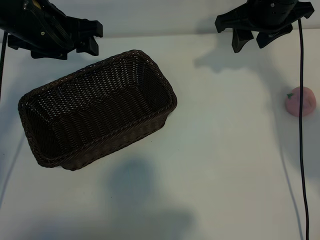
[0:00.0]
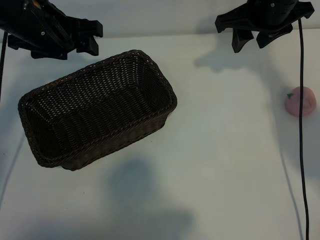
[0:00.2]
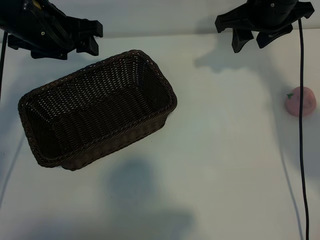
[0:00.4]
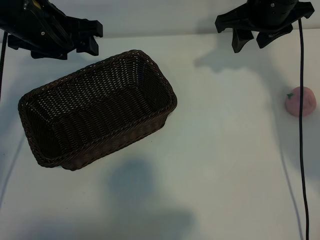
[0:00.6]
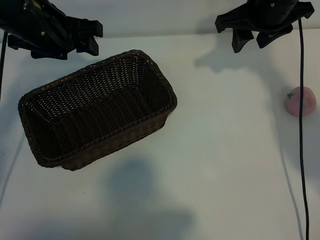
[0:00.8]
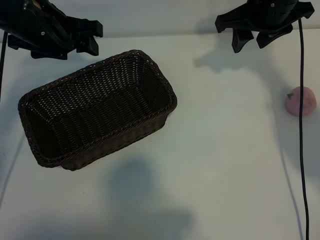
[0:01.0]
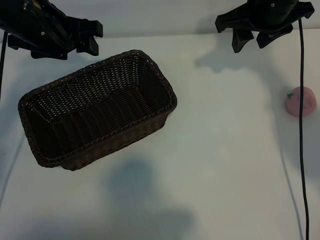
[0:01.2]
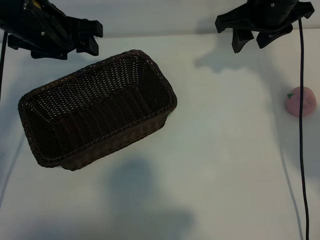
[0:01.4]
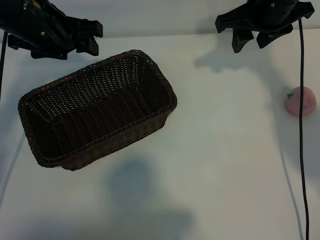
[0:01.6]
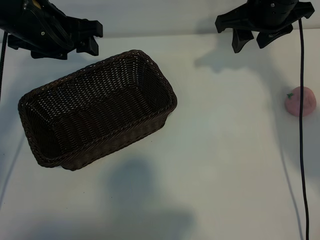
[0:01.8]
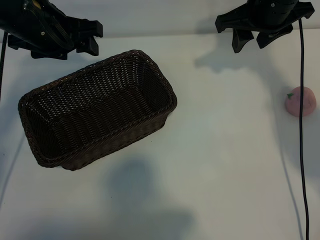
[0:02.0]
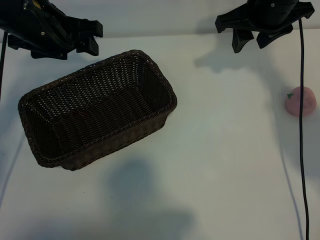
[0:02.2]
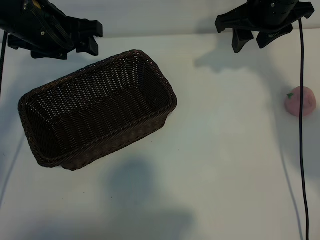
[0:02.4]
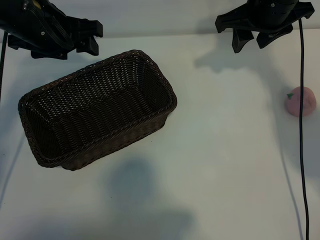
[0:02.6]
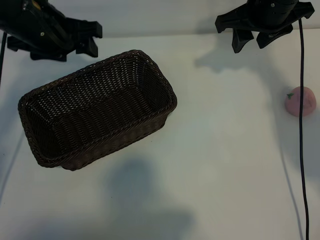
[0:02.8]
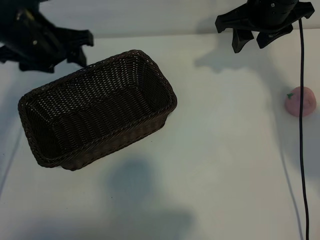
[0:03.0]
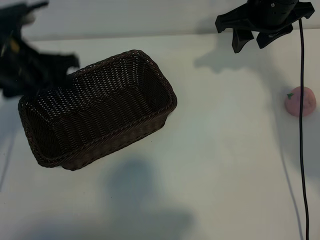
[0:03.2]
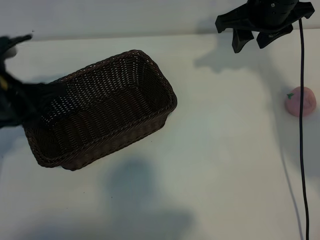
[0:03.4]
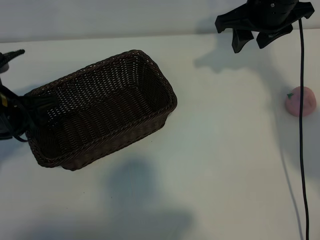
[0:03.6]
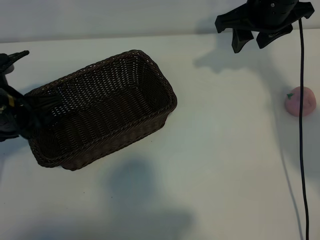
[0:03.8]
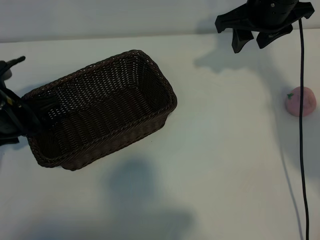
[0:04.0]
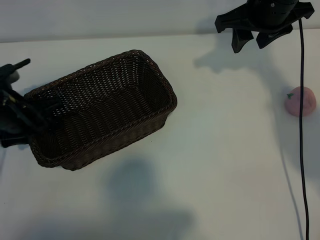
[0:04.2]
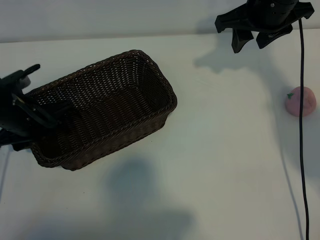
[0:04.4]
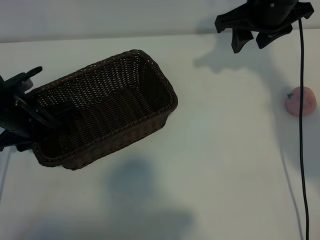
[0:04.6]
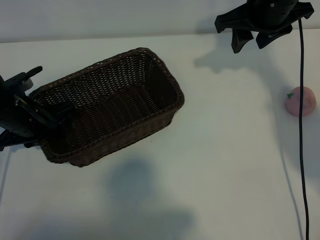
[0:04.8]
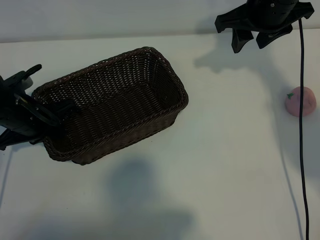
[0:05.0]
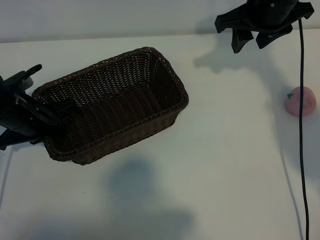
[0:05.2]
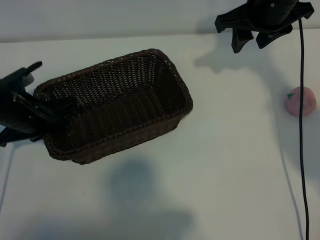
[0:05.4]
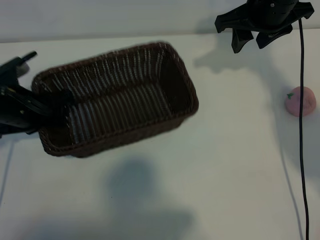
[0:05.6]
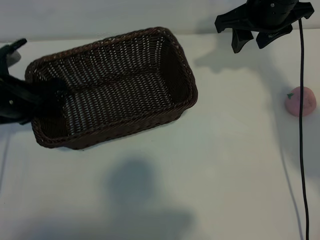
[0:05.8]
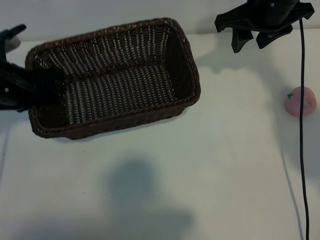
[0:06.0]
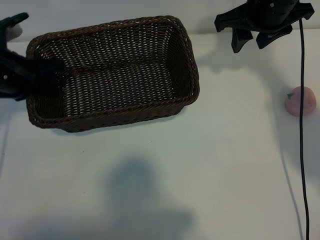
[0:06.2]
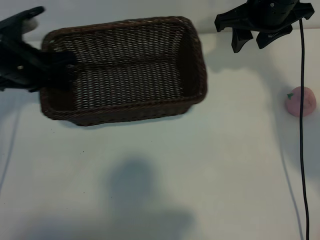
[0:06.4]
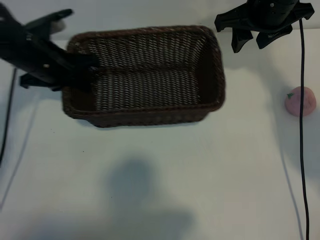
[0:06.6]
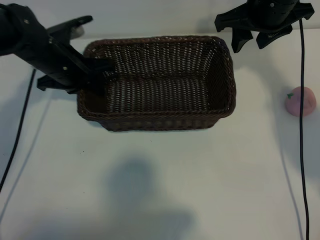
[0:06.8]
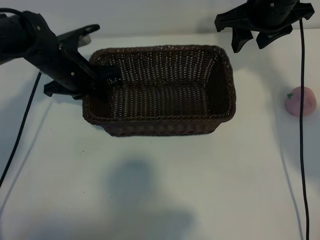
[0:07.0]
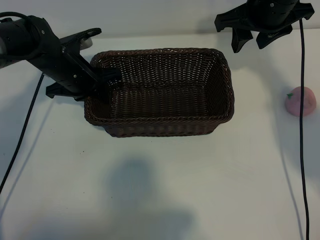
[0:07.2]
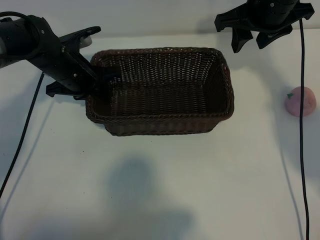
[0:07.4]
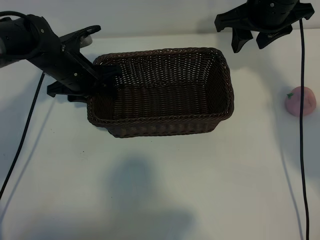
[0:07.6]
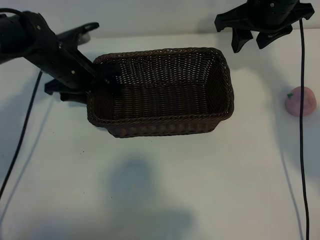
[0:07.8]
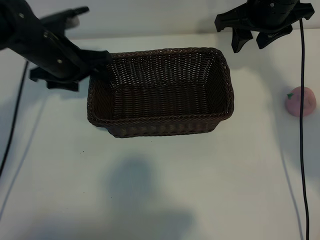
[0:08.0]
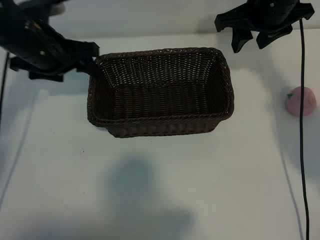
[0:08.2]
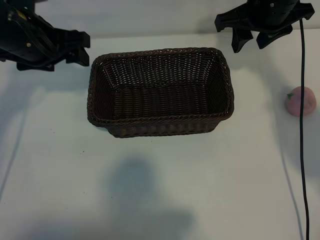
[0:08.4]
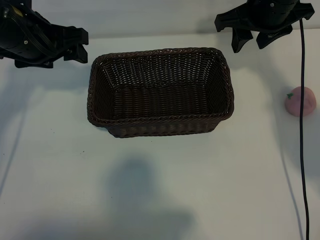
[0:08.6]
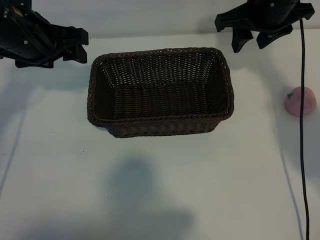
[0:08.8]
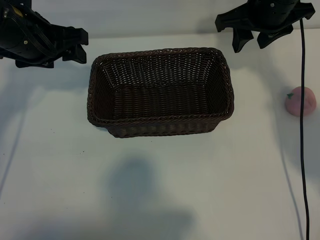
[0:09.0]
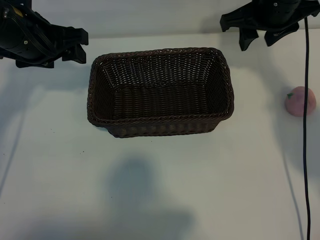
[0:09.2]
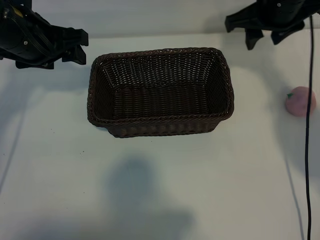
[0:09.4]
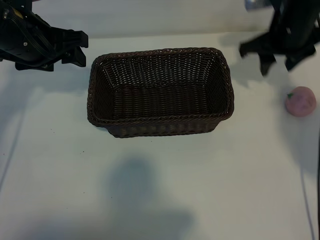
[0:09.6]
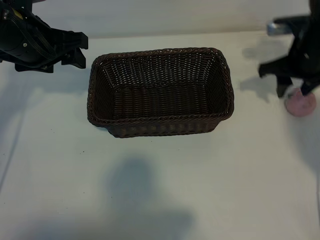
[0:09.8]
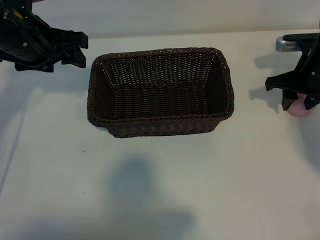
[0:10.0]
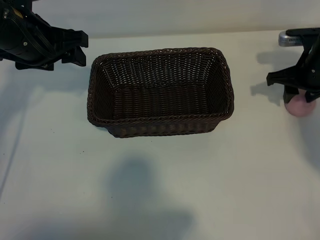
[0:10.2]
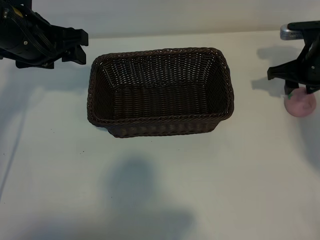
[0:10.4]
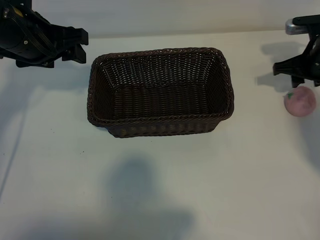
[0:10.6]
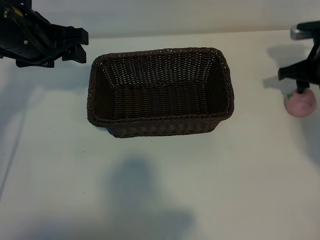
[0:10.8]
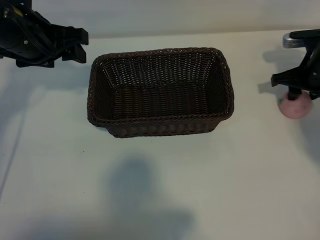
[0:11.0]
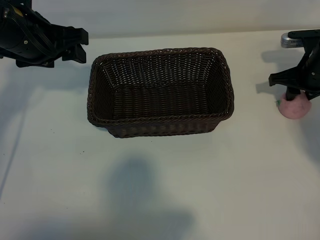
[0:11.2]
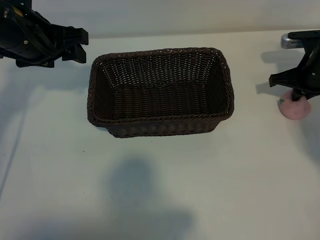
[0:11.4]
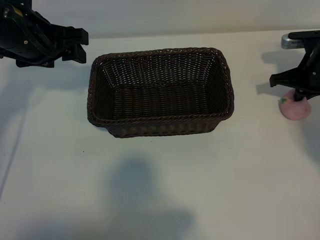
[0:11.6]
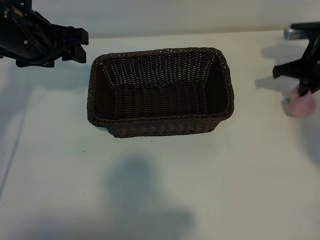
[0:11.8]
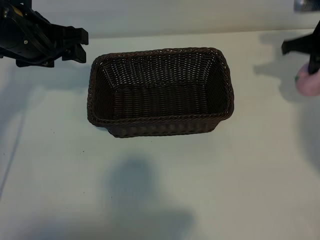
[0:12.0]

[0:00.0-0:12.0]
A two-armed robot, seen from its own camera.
Task of the whole recording: pick up the peach and put it into the basket.
Step, 0:02.8 to 0:05.4: Grasp the basket with left gripper.
Step, 0:05.6 to 0:07.8: Place the basket in the center of view with left gripper.
Step, 0:08.2 to 0:11.6: Grasp the peach with right gripper.

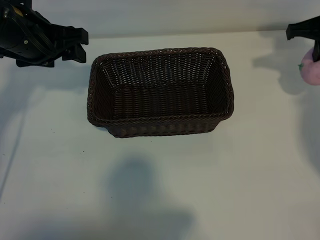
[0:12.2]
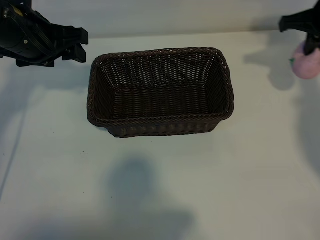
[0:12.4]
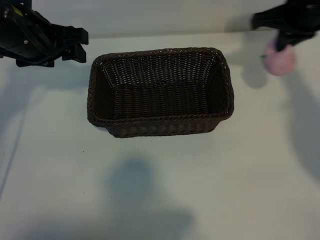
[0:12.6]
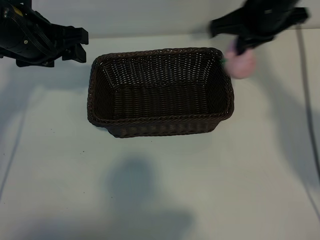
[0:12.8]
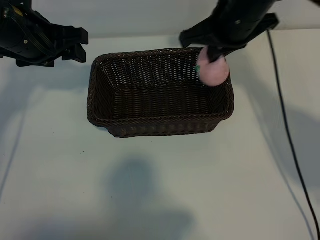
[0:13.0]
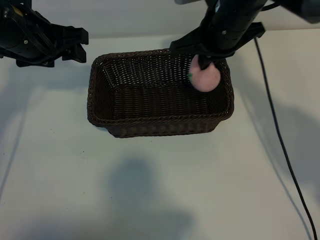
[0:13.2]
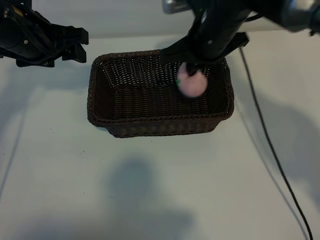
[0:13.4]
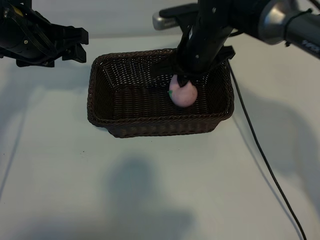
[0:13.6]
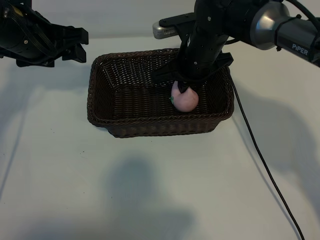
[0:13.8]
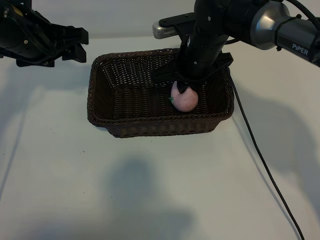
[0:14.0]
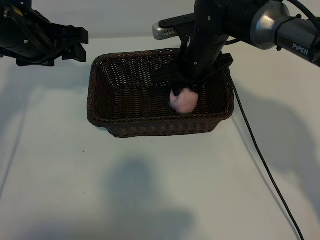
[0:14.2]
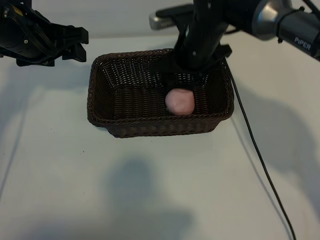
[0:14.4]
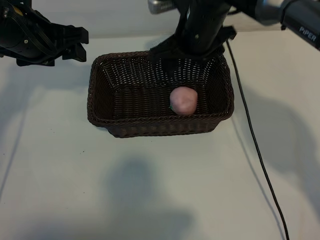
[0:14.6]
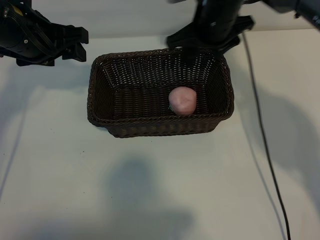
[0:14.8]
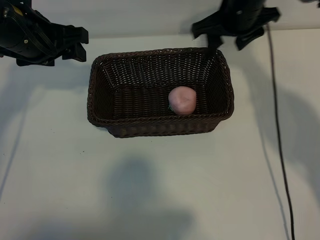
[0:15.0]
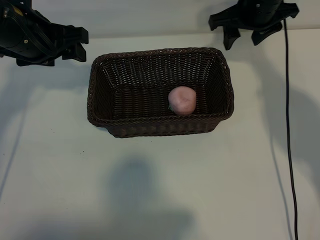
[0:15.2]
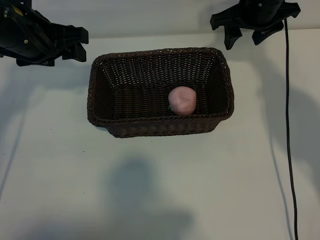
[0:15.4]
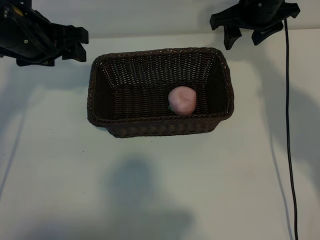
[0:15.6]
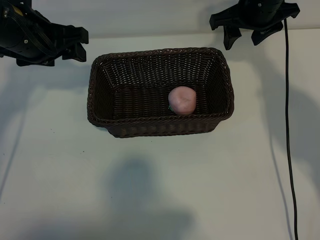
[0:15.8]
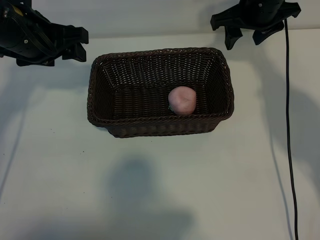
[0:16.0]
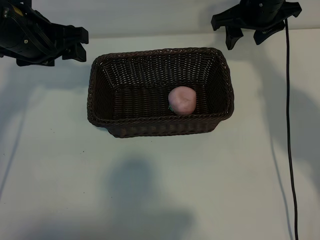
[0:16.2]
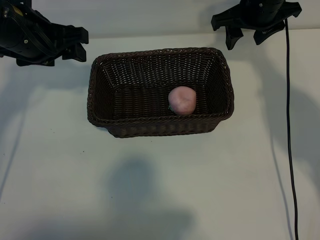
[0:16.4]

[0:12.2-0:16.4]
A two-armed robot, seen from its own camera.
Task of the whole recording: pick up the peach and put it into the basket.
Step, 0:12.2 to 0:14.4: Place the peach in the basket with right gripper.

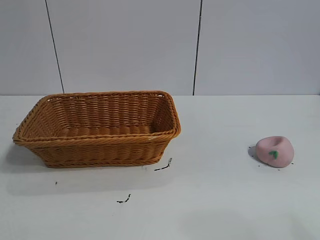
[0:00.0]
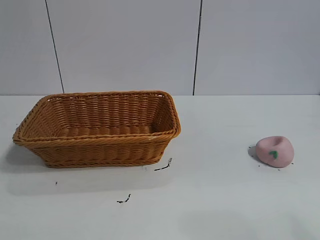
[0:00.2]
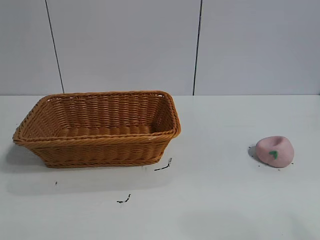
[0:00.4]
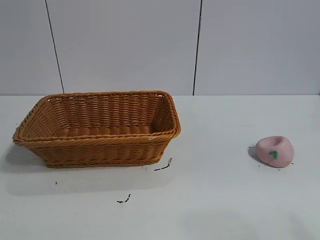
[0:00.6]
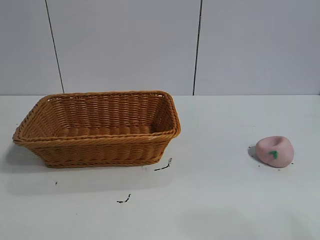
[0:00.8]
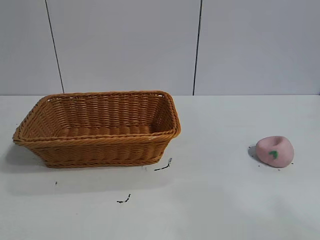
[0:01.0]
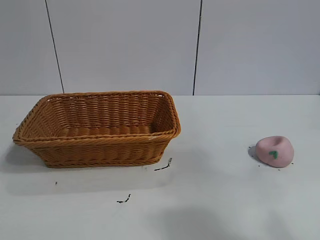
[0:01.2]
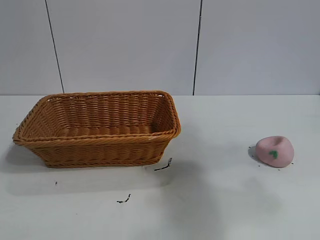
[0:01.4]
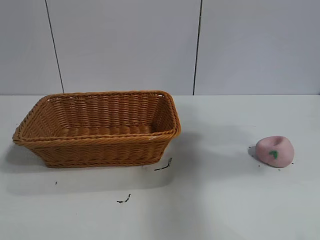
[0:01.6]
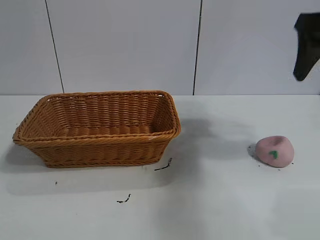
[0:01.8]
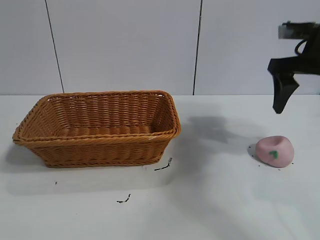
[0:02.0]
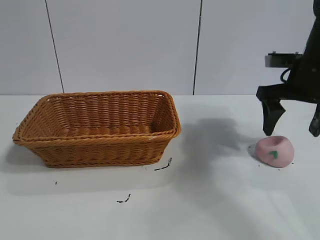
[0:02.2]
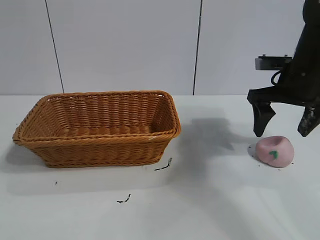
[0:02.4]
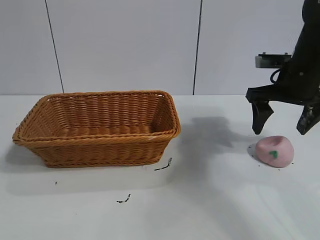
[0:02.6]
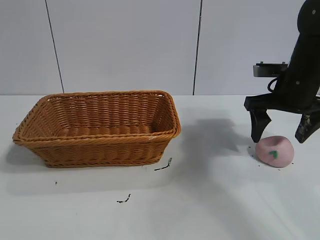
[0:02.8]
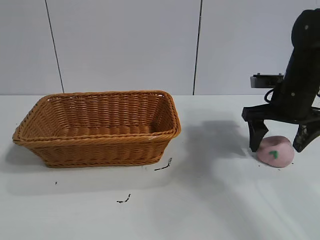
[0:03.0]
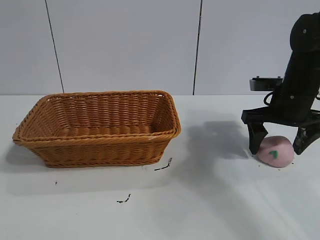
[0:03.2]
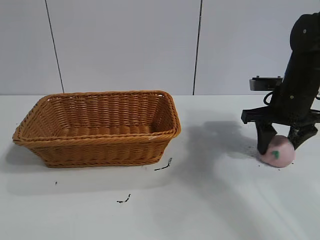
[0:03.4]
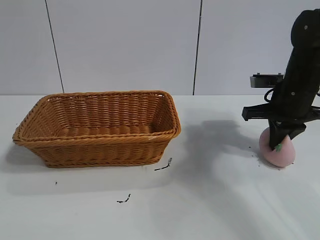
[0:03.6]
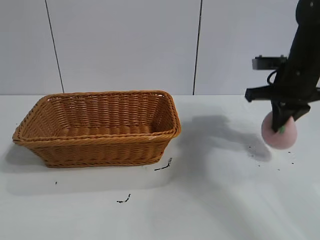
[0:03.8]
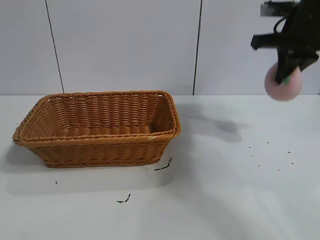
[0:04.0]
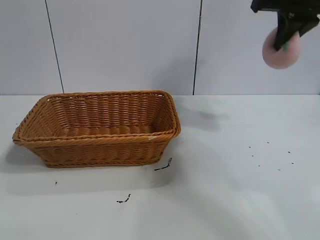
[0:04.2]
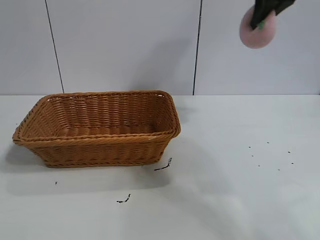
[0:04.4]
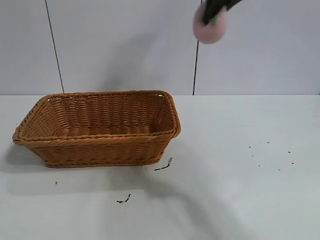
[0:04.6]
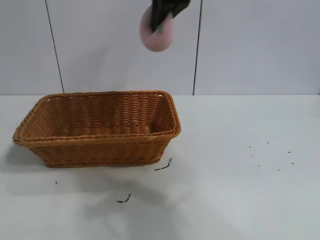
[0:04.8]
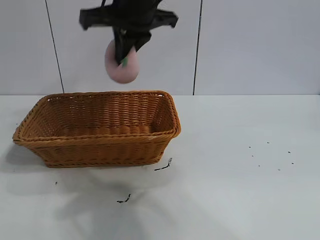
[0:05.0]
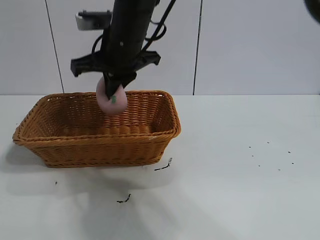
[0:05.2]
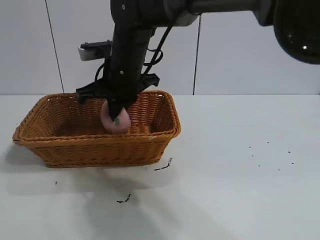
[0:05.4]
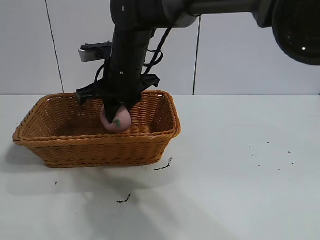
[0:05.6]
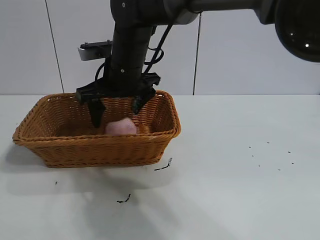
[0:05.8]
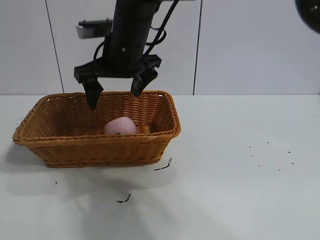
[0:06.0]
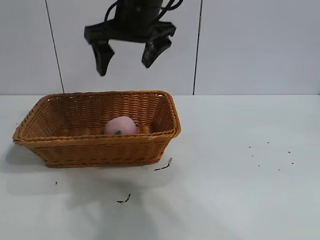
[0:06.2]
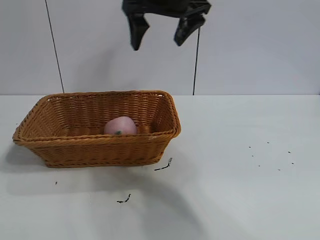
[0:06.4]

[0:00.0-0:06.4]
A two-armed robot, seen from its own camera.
Task of the whole recording: pick up the peach and put it into the basket.
Step, 0:01.0 to 0:03.6: Grasp the peach with right gripper.
Step, 0:03.8 to 0:06.0: Place the peach in the basket with right gripper.
